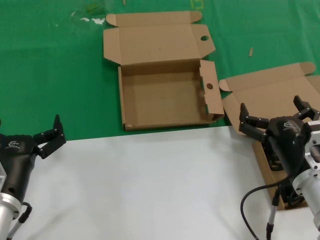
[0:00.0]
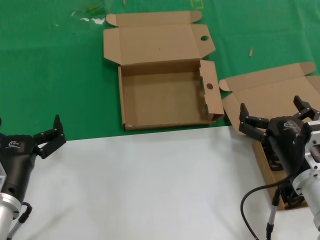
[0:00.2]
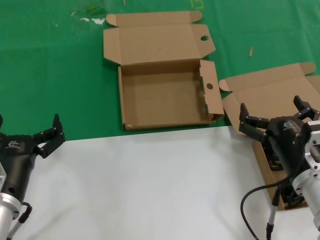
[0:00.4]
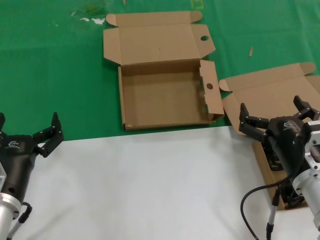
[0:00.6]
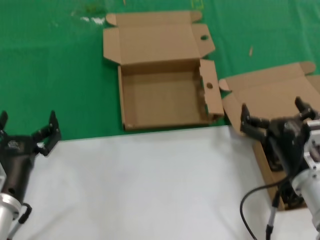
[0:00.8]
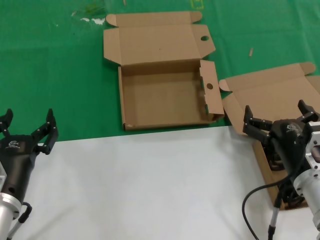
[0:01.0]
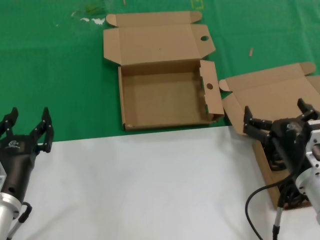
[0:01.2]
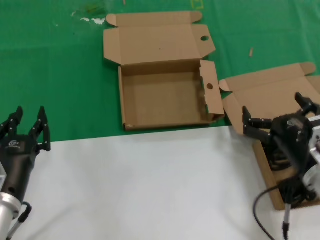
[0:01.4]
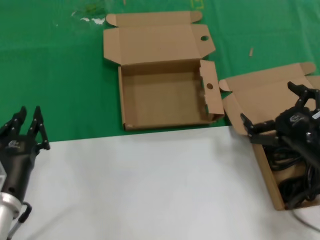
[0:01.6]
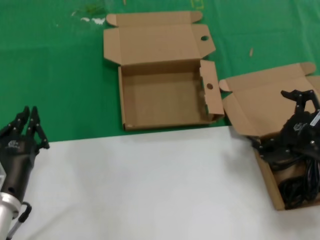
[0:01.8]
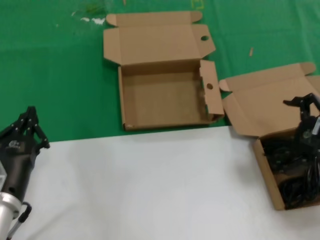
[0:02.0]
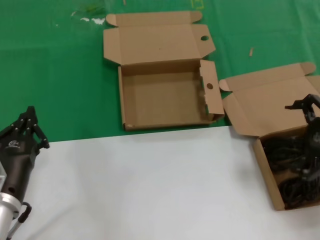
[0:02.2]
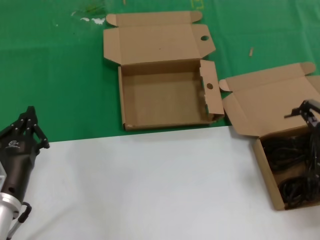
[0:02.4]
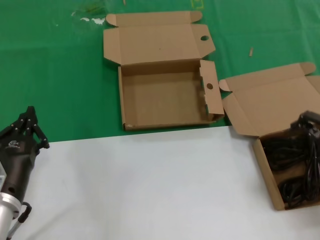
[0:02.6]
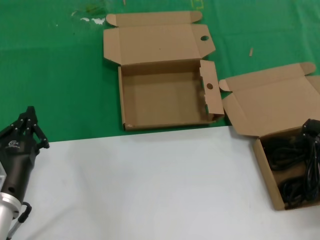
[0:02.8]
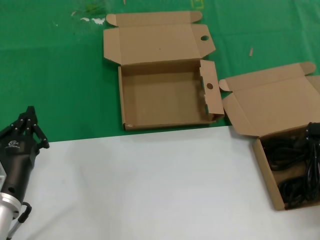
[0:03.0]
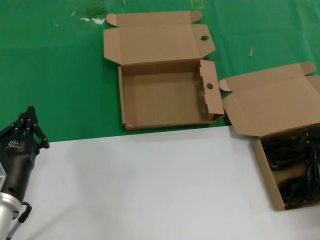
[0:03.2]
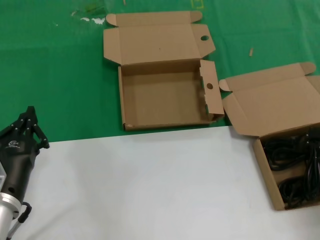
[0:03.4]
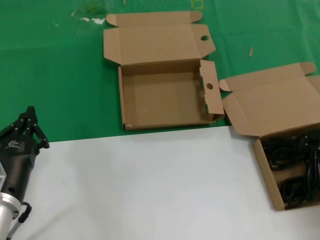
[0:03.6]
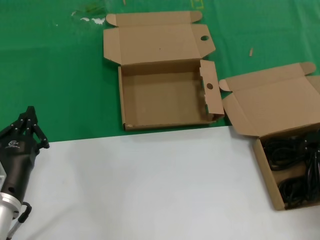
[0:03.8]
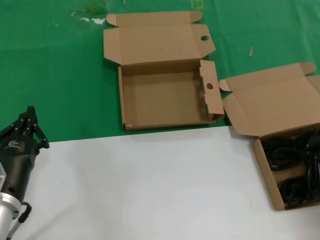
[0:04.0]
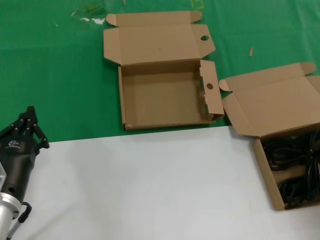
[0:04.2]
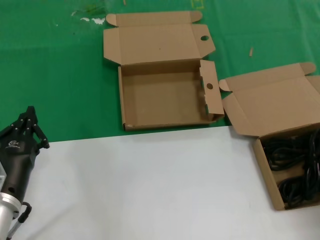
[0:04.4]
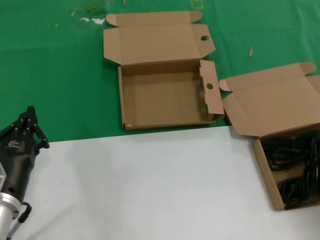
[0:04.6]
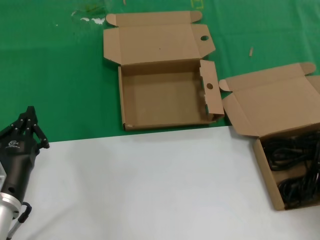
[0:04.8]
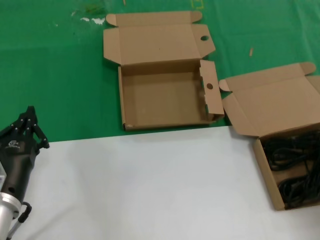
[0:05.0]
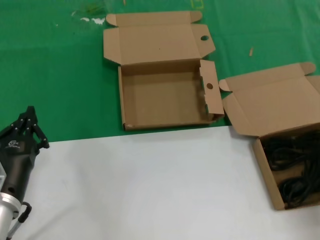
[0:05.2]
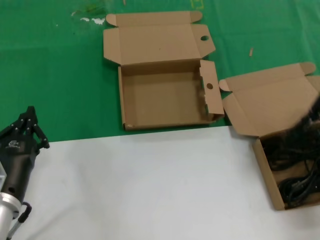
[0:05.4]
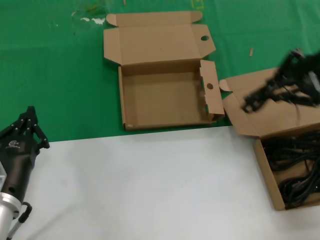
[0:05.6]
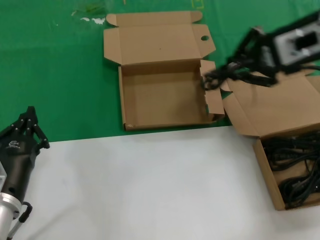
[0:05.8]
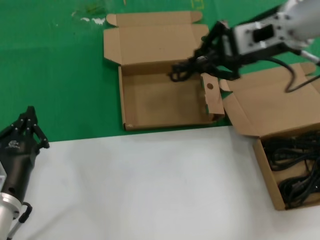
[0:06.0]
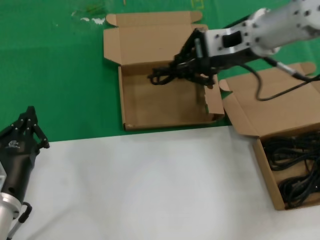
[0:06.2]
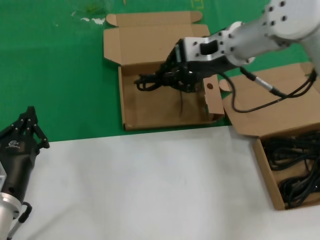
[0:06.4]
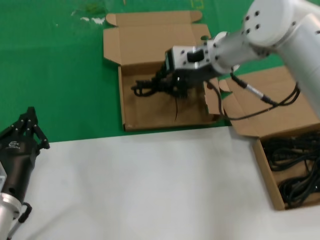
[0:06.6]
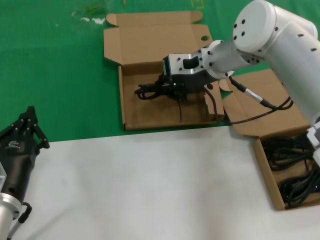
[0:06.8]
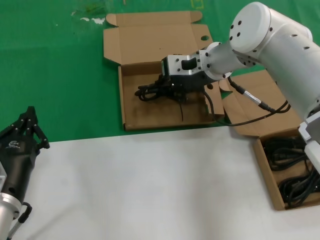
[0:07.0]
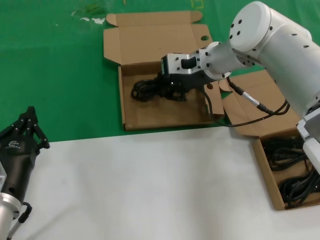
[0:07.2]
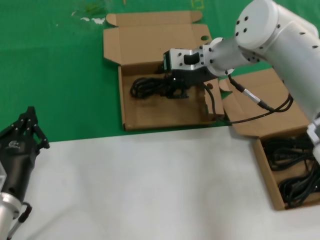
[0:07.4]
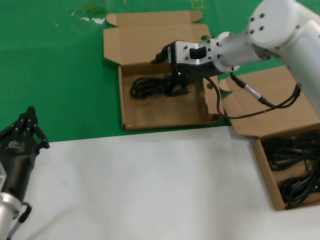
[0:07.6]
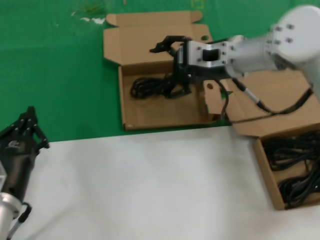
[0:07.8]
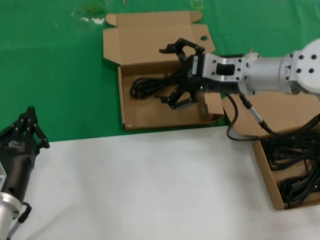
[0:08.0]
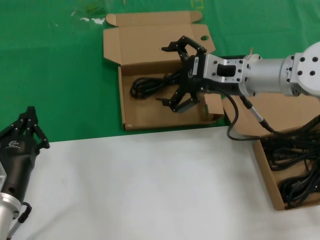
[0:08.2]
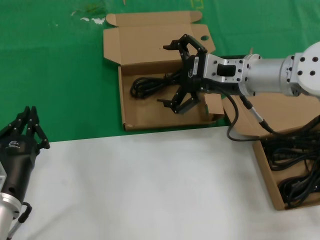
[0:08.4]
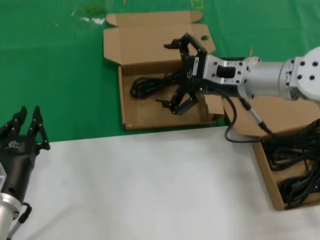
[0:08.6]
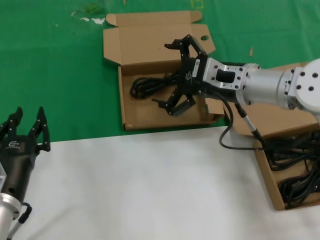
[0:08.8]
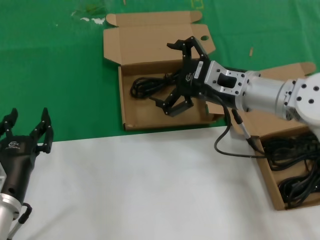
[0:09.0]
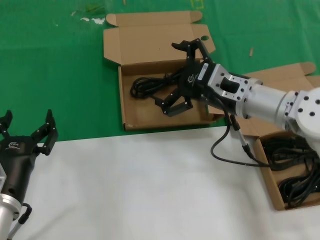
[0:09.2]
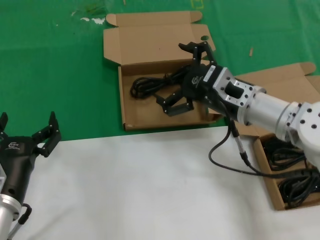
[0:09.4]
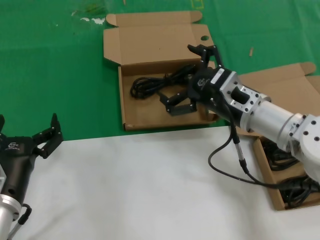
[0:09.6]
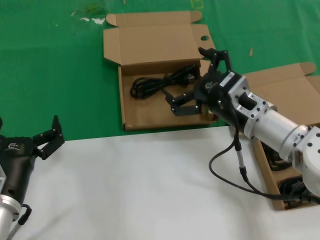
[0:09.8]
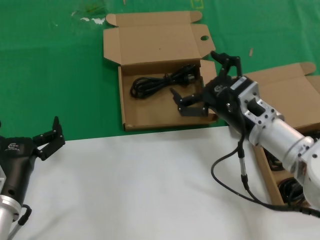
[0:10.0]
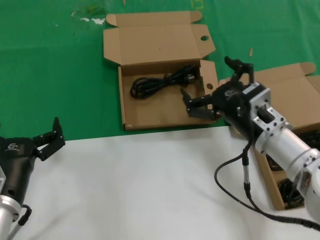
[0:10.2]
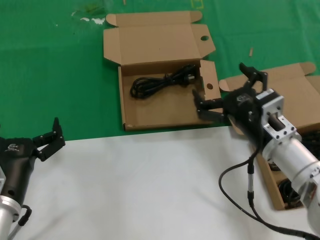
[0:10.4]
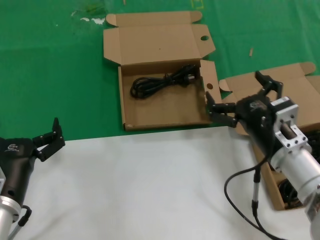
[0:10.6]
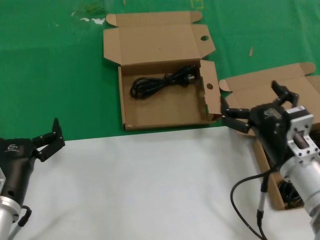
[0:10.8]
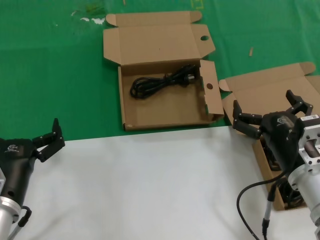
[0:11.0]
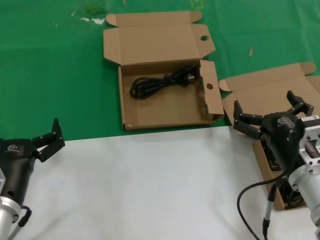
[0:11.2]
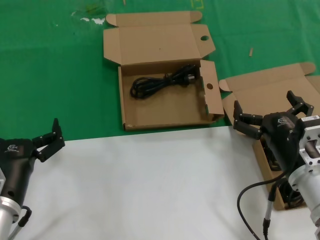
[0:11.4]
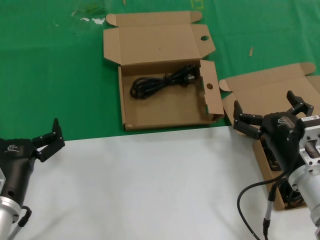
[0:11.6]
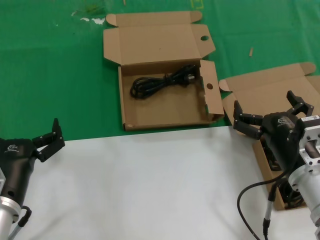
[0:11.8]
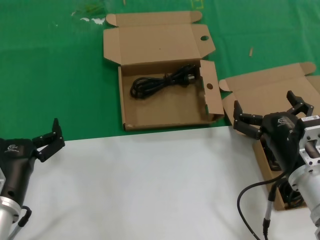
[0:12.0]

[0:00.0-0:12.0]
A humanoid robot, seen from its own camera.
Task of the whole recording: take the parts from the box containing them and put them into an empty box.
Step, 0.0 to 4.4 s: Grasp the data cable.
Step, 4.6 to 7.6 s: Place the data cable in the another box.
0.0 to 1.6 s: The right hand is displaced to the right by approximately 5 cm.
1.6 to 3.0 s: The right hand shifts about 15 cm upward and to the right.
4.4 to 6.0 s: The right hand goes approximately 25 cm to the left, upward and forward.
6.0 to 7.6 s: The right hand moves downward, forward and to the left, some 15 cm.
7.6 to 9.0 s: The right hand moves backward and downward, some 10 cm.
9.0 to 10.4 s: The right hand goes approximately 15 cm downward and backward.
10.4 to 12.0 s: The right hand travels backward by some 5 cm.

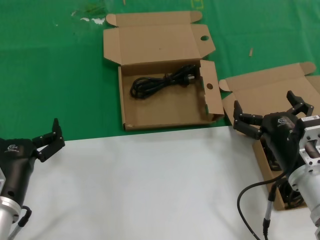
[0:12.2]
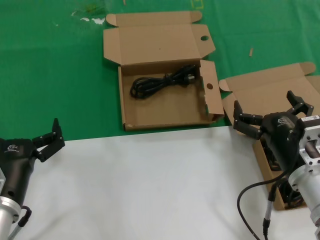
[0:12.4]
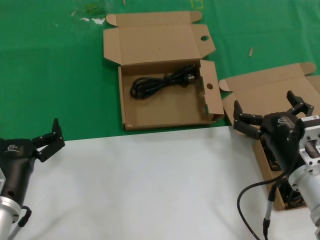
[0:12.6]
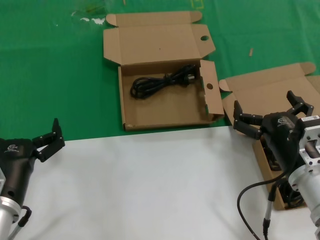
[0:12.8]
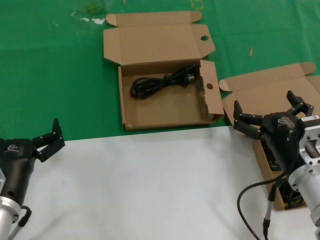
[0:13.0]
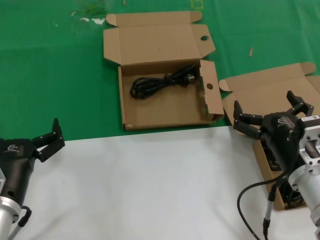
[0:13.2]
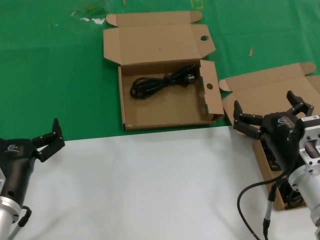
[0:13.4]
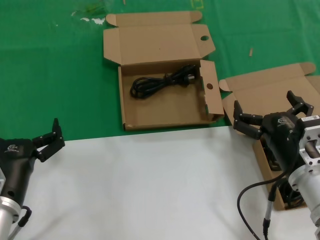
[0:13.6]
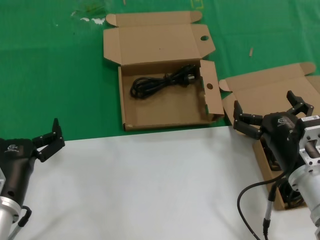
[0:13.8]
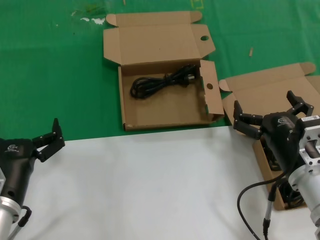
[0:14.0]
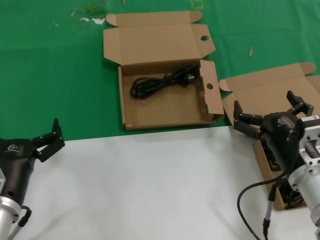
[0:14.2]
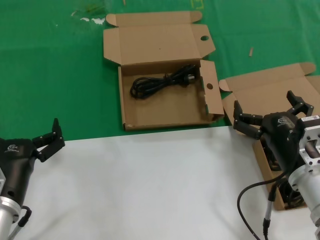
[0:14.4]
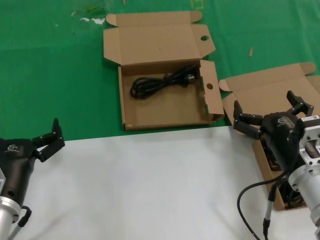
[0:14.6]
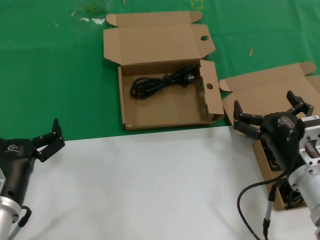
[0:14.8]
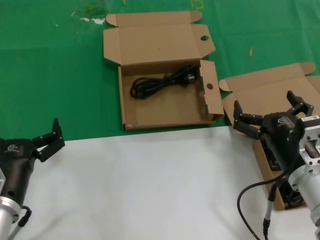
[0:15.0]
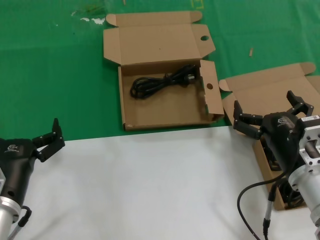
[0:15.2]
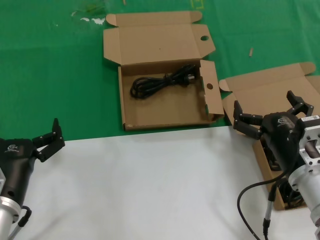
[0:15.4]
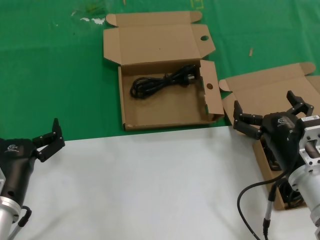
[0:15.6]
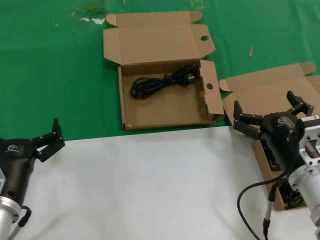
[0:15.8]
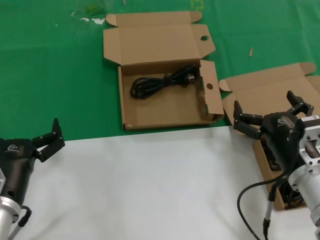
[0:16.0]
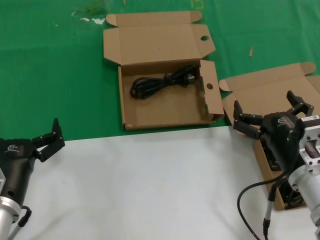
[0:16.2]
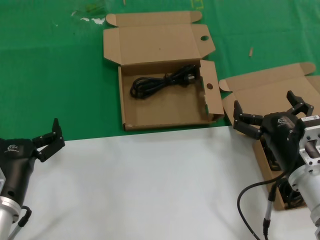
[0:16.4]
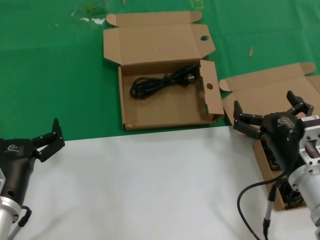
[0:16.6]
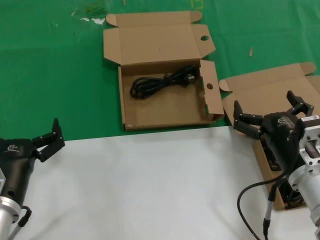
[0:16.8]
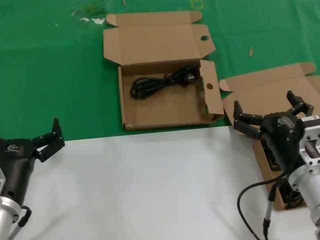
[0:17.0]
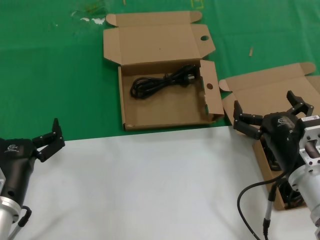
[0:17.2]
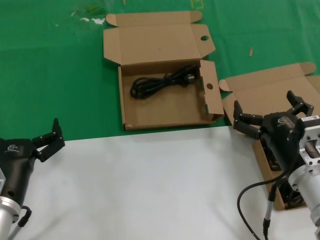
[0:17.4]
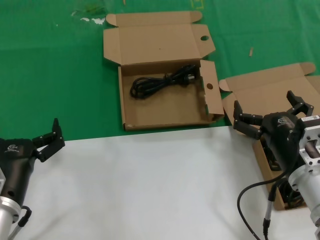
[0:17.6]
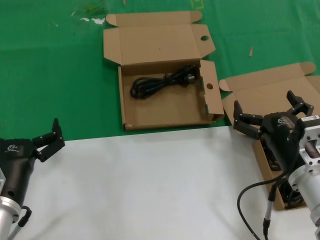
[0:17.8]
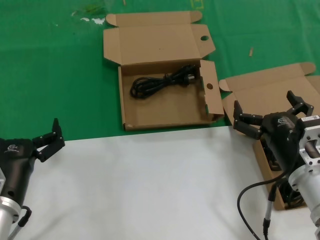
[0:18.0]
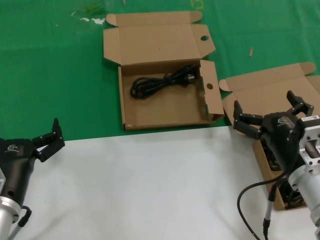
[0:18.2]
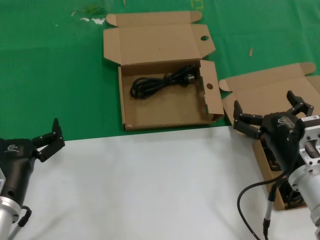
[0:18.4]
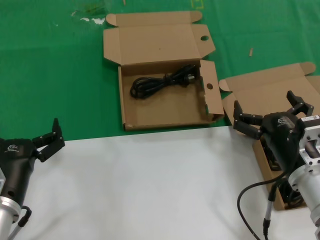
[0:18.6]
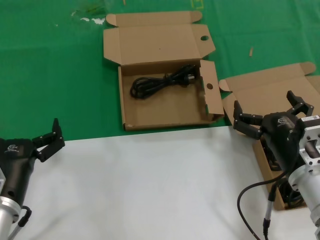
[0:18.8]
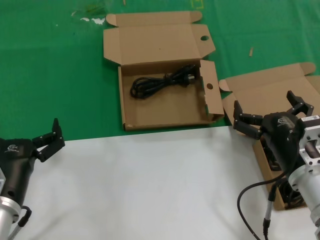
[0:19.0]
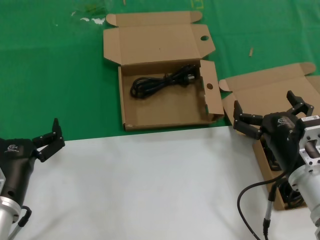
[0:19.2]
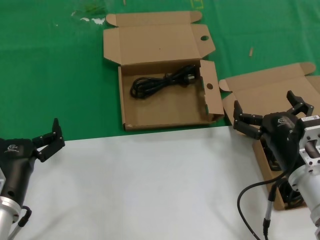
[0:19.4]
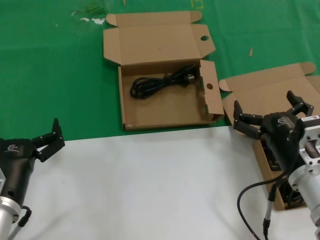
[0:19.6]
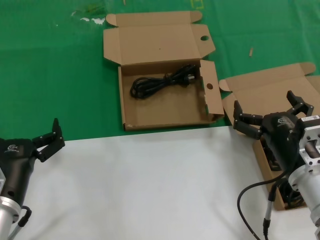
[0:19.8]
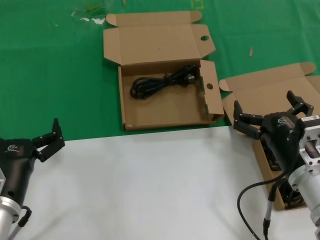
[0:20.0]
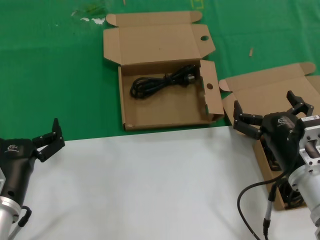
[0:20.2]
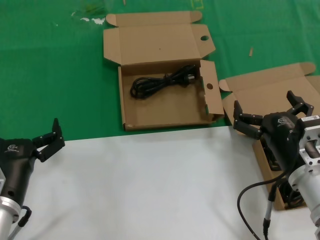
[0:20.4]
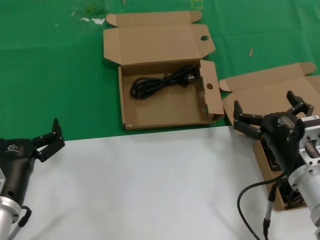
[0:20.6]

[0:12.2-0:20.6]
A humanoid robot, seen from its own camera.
Task of the whole recording: take the parts from the box containing them and put them into an empty box.
12.2 to 20.6 s: The two hands keep their place.

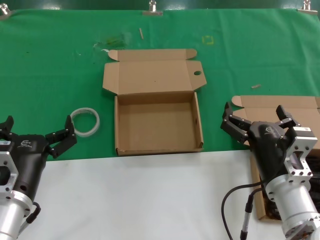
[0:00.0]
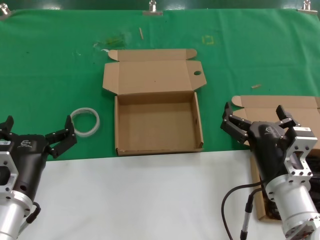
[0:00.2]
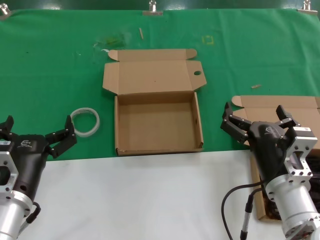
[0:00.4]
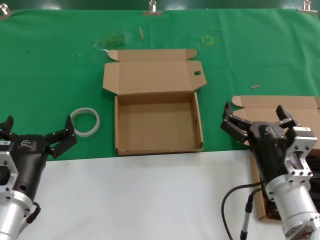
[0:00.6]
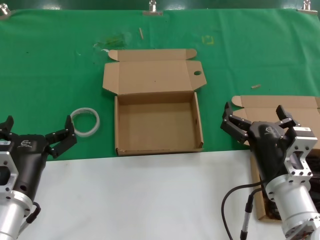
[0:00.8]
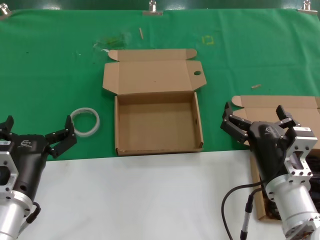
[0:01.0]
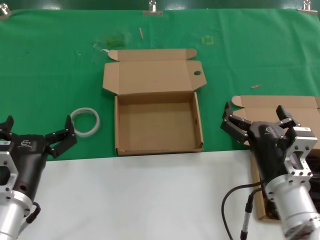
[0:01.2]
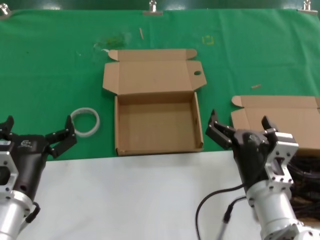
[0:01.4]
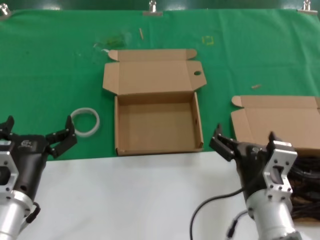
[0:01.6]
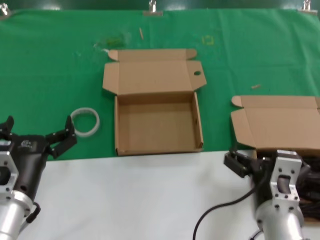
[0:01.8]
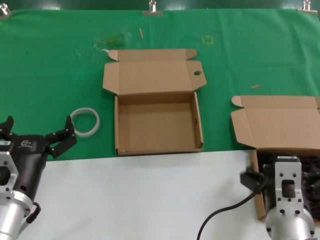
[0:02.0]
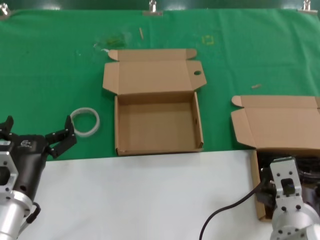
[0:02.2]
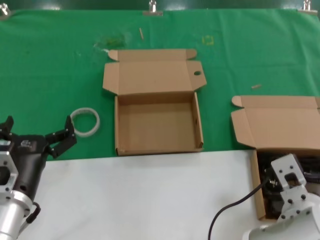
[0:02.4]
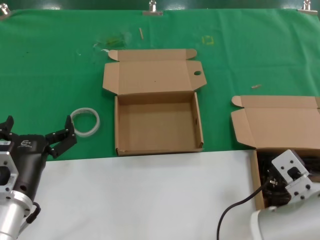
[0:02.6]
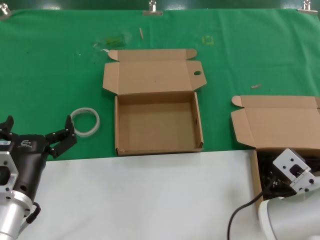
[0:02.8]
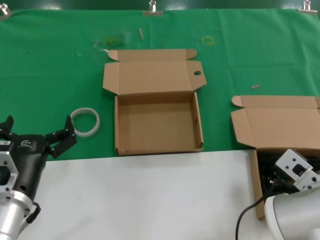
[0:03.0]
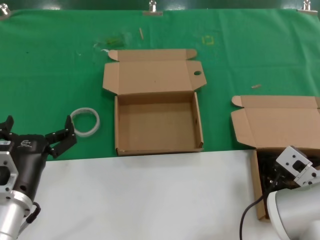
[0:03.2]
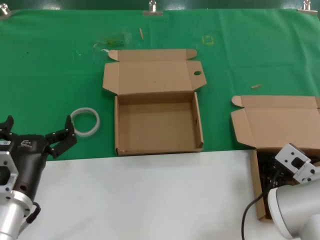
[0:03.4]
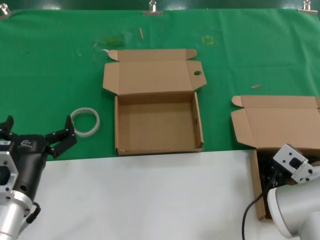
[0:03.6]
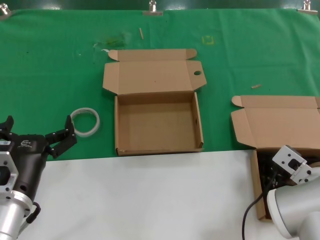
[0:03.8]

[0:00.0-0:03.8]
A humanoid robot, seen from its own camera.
Task of the whole recording: take the parts from the box containing them and put them into an empty box.
0.0 to 1.2 s: The two hands keep their place.
1.2 to 2.6 s: The right hand goes approximately 5 cm upward.
2.6 to 3.8 s: The right hand is displaced forward and to the right by approximately 10 cm.
